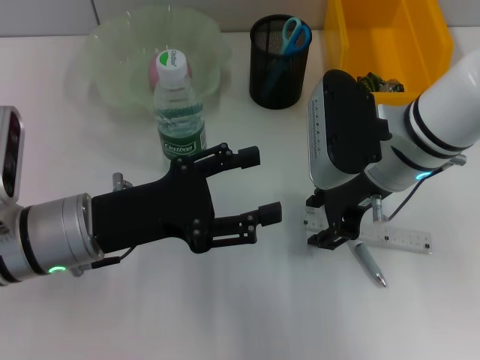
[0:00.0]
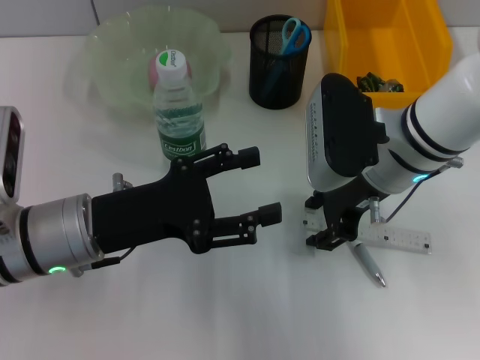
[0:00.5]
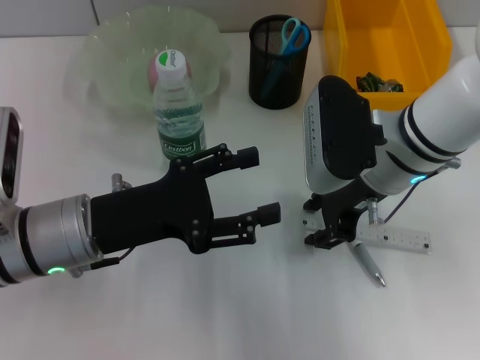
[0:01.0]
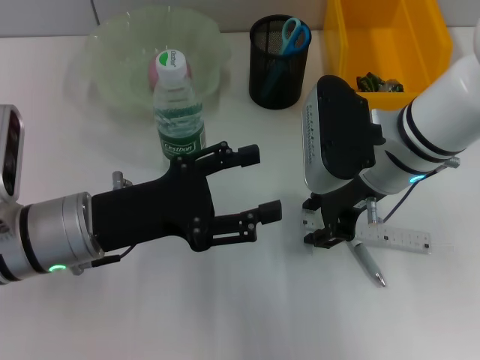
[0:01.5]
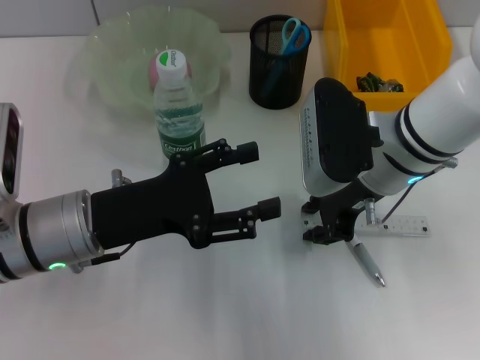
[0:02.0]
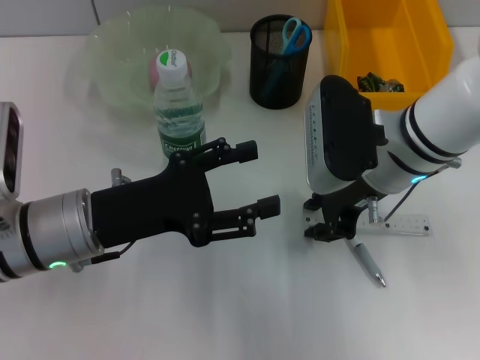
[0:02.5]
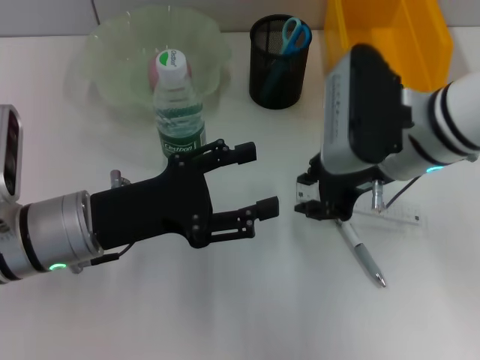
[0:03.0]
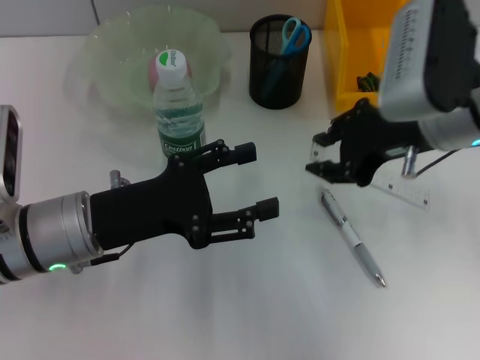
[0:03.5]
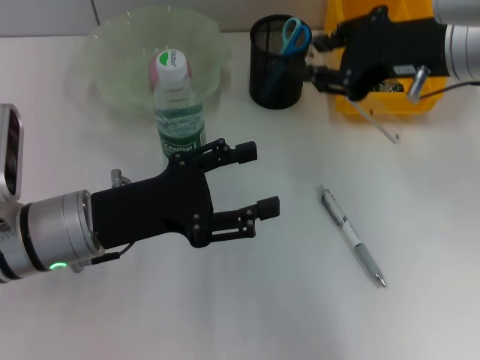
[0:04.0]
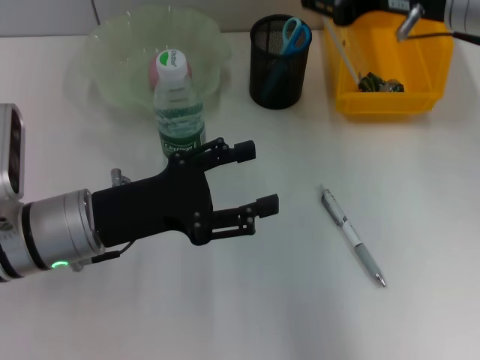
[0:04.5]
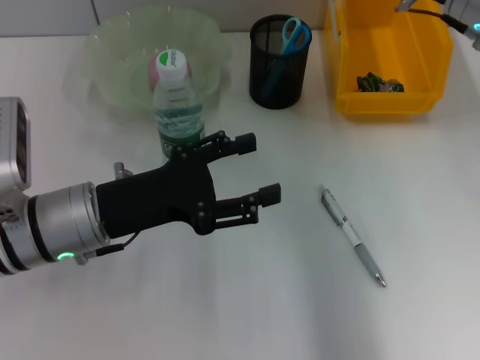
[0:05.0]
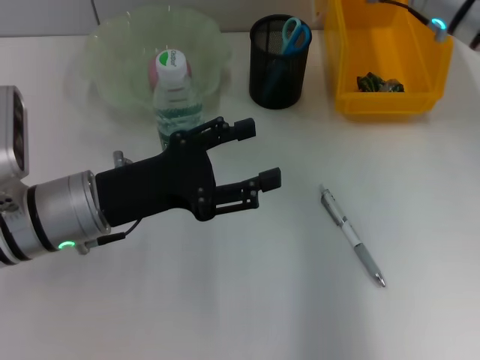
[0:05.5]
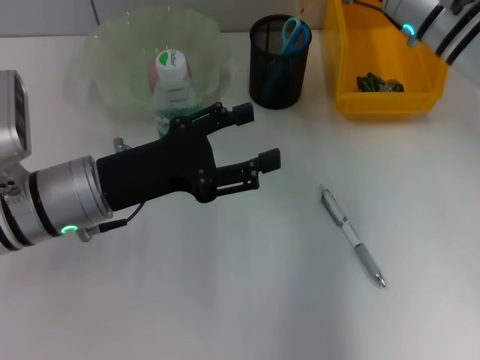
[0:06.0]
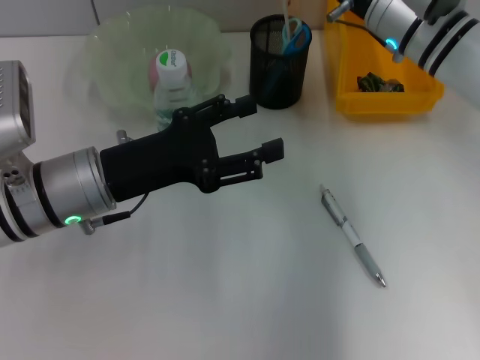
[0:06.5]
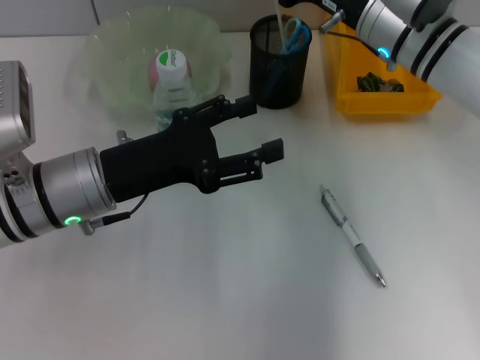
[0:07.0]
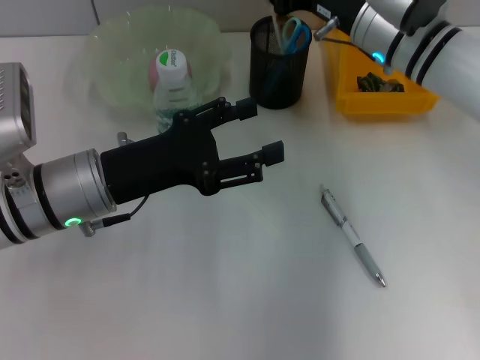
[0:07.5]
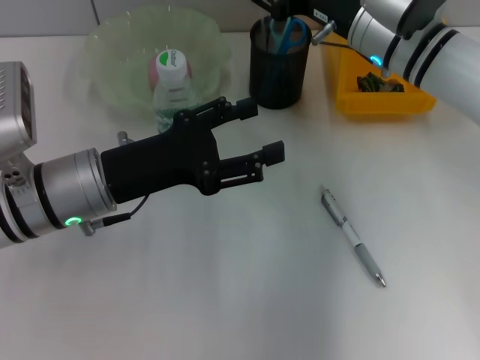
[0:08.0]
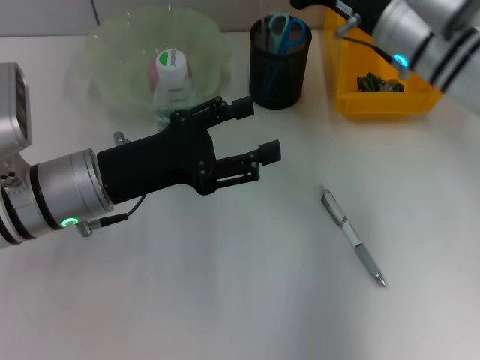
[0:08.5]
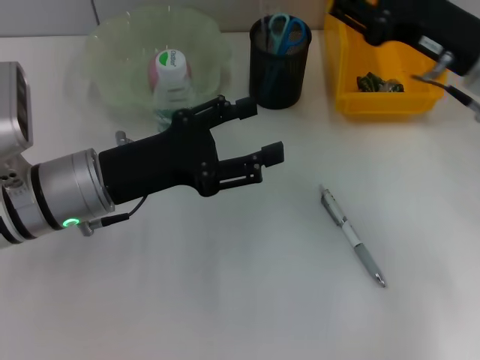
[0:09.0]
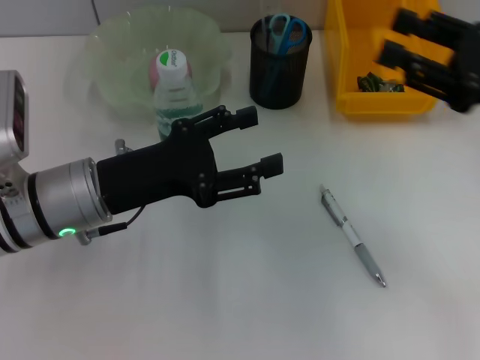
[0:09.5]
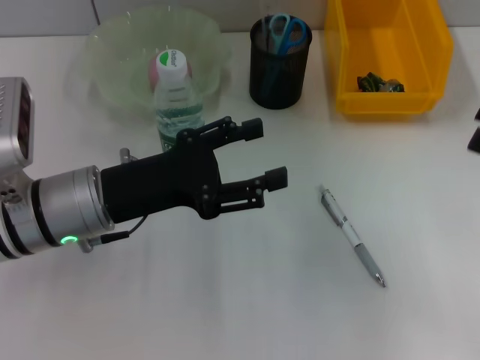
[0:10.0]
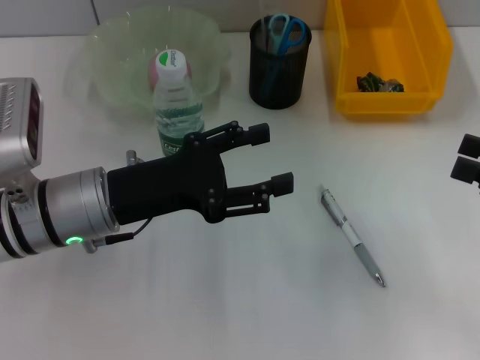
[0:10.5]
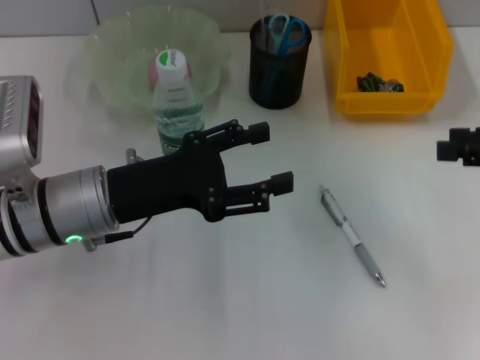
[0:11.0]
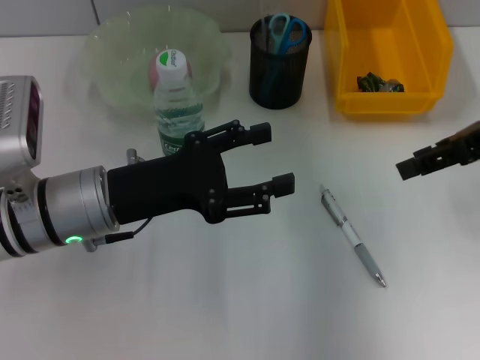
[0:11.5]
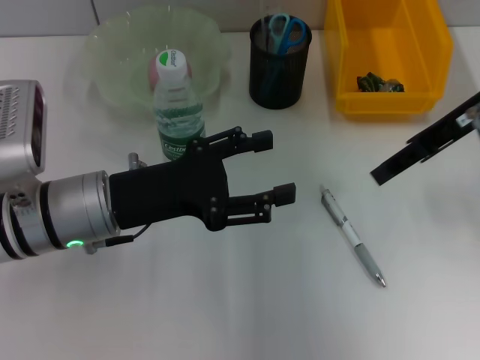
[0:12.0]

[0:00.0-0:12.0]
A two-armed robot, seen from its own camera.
Step, 0:00.0 to 0:02.0: Grab the ruler with the right hand.
Step, 0:02.5 to 0:08.5: Place the ruler into the pen holder with the right hand.
0:00.0 to 0:02.0: Neither gripper changes place.
0:02.0 to 0:04.0: The right gripper shifts some 10 cm upward and to the right.
0:04.0 to 0:06.0: The right gripper goes approximately 10 cm forward and downward.
0:06.0 to 0:08.0: The grippers make only small movements.
0:08.0 to 0:10.0: The right gripper goes approximately 30 cm to the right and backward.
0:10.0 to 0:12.0: The right gripper goes about 20 cm forward and to the left.

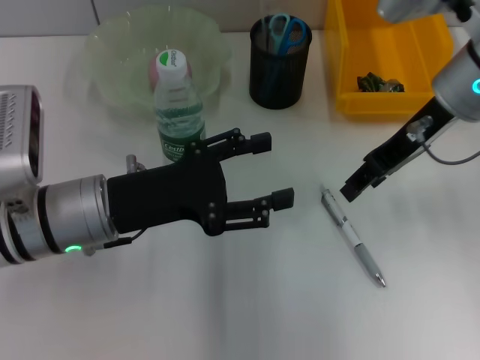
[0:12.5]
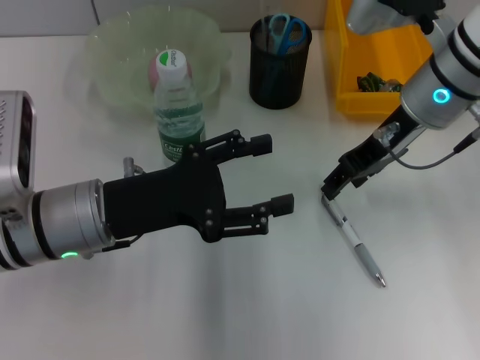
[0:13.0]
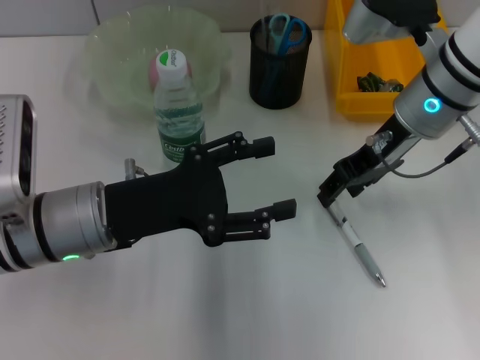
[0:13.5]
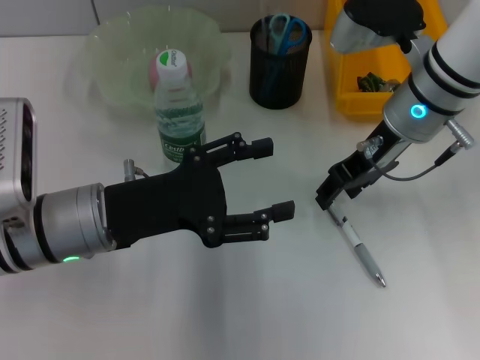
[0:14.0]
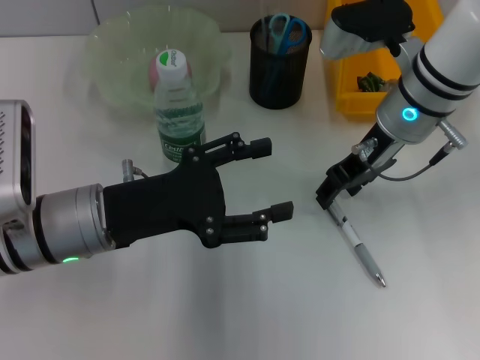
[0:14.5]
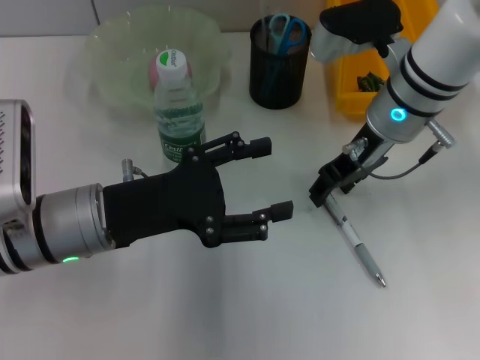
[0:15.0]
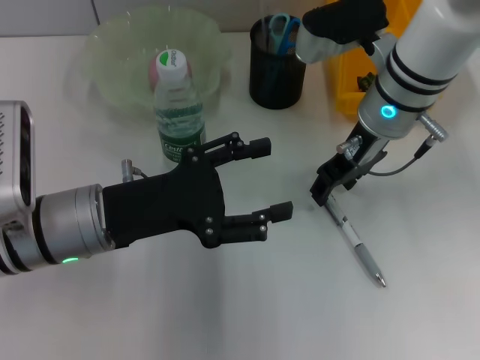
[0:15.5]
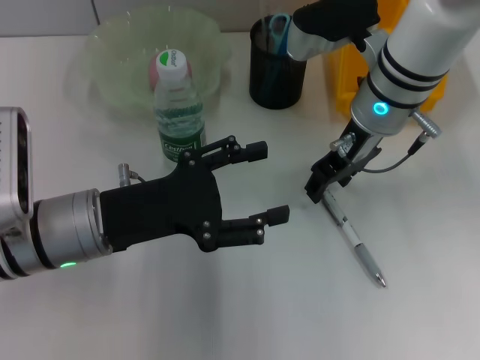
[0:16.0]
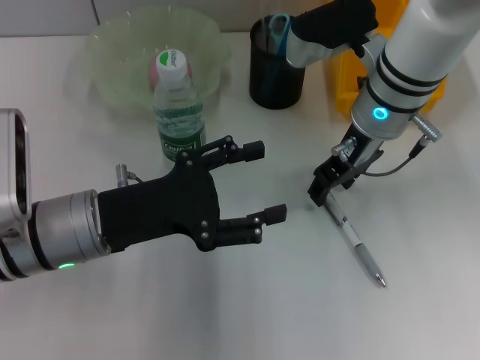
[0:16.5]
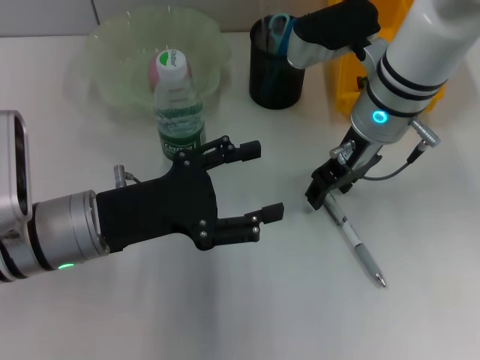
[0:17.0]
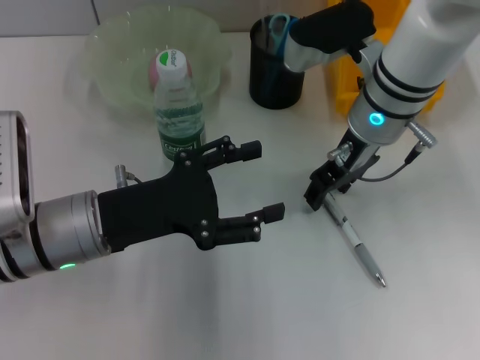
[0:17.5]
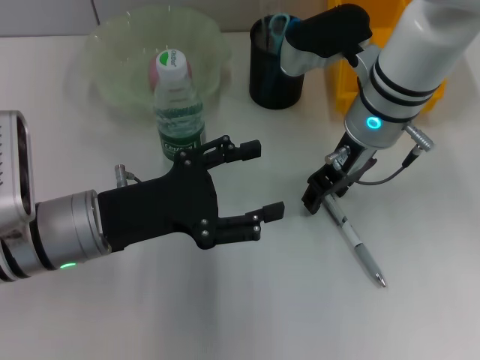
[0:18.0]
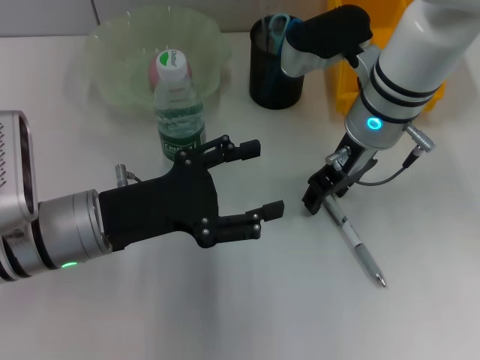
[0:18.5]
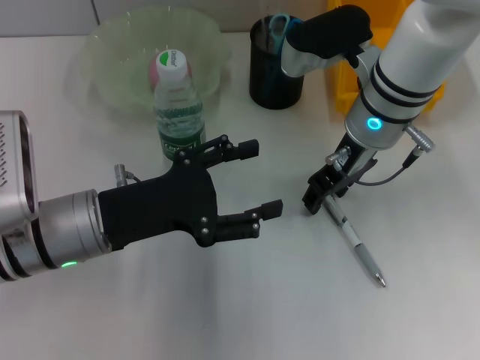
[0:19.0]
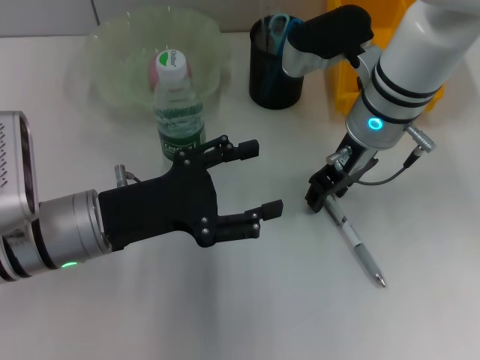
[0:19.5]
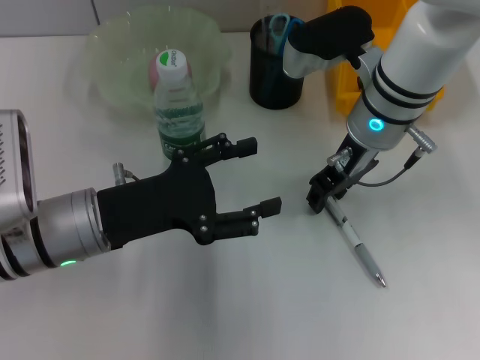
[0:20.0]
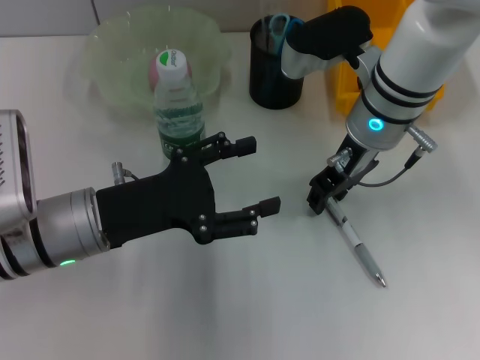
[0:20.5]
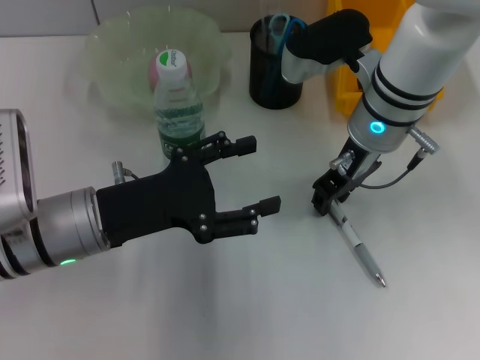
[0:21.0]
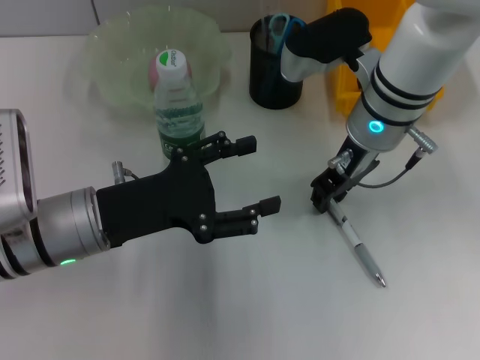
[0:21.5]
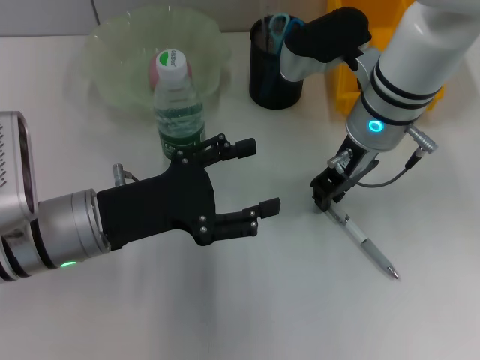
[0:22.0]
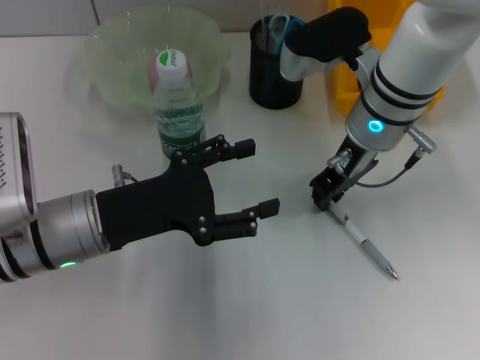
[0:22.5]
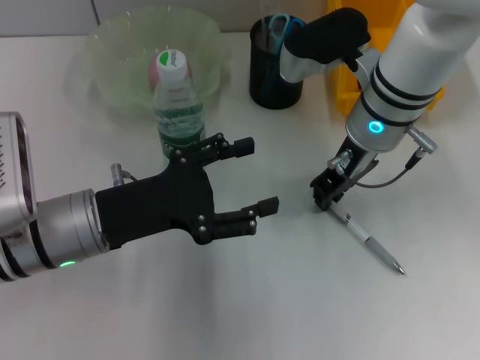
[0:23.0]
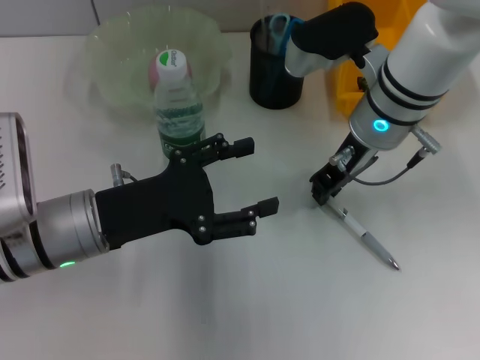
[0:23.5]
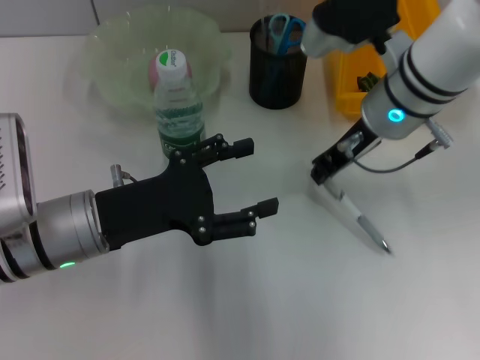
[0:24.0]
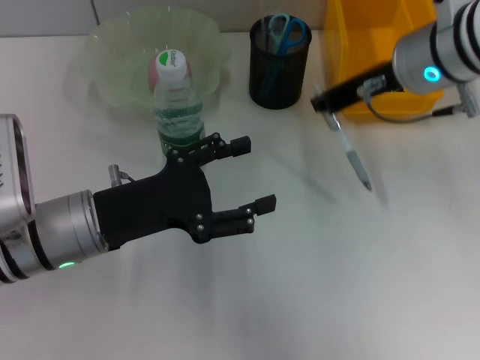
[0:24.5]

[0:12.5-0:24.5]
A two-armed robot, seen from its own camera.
Step, 0:12.5 to 0:23.0: Grab the gray spring-action pen with the right hand.
0:12.5 to 0:14.5: The right gripper changes place by some 5 cm.
0:14.5 to 0:16.5: The grippers move only a little.
0:16.5 to 0:22.5: Both grippers stay about where they are.
0:22.5 to 0:24.5: The right gripper heads upward, covering approximately 5 cm.

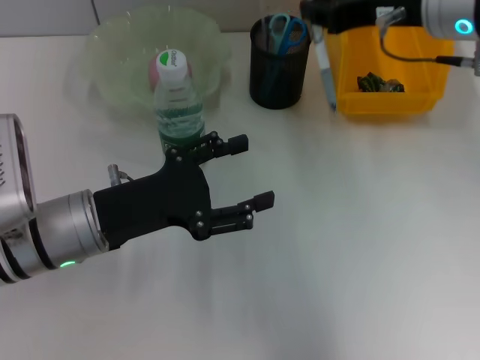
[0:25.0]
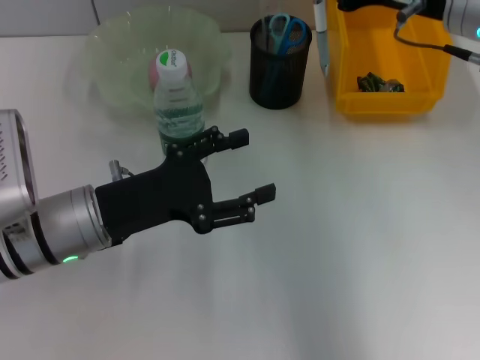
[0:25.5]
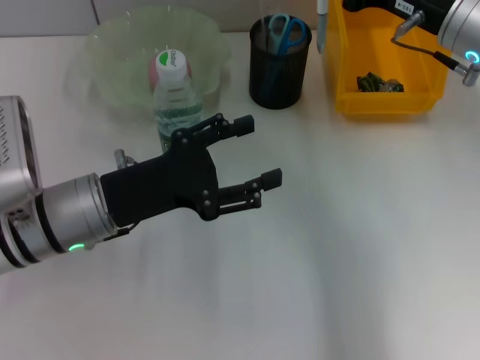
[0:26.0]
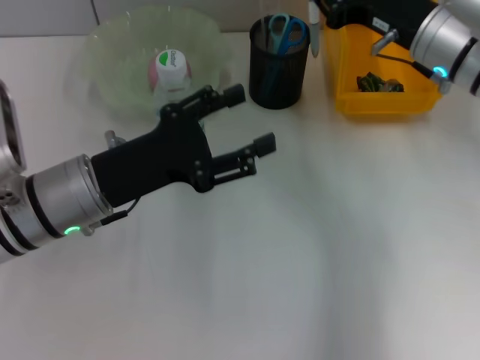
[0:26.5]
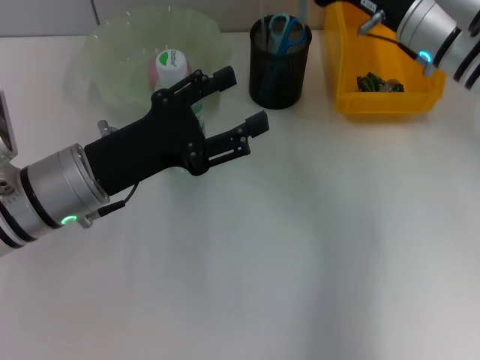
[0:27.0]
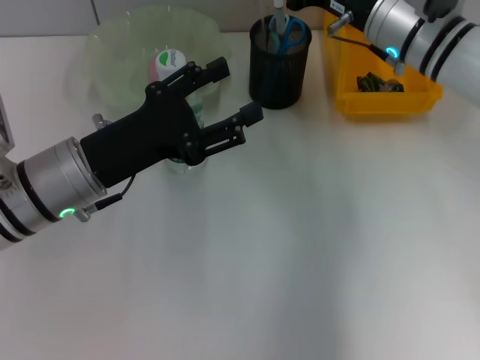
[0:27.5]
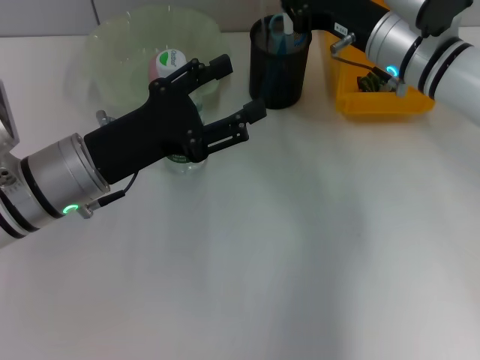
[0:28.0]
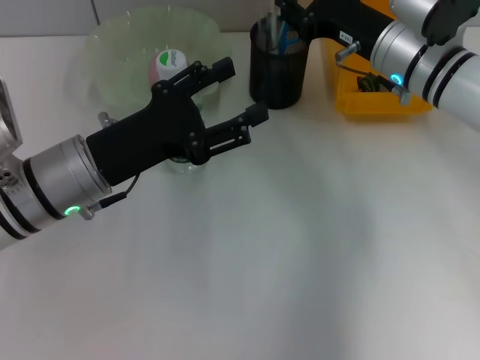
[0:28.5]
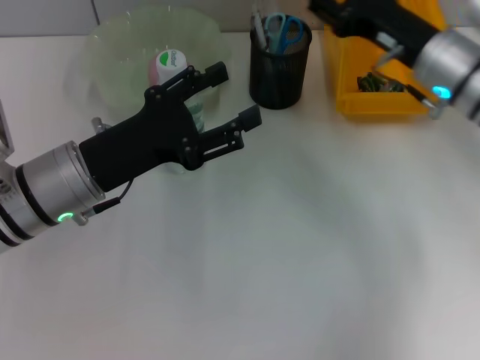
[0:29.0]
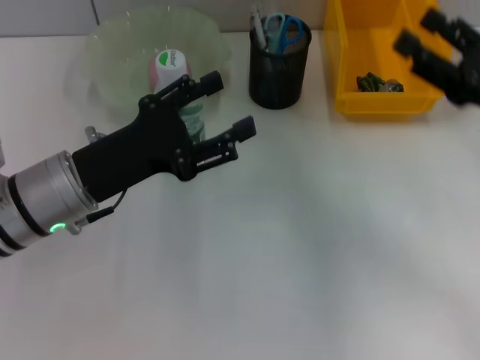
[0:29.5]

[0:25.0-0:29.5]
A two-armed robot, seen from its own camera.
Step, 0:25.0 to 0:28.5: Place the gray spring-action pen into the pen holder with the right hand.
0:25.0 to 0:27.0: The right gripper heads downward, covering some 5 cm.
0:27.0 to 0:29.5: The right gripper moves backward and to the right, some 15 cm, and opens its fingers.
